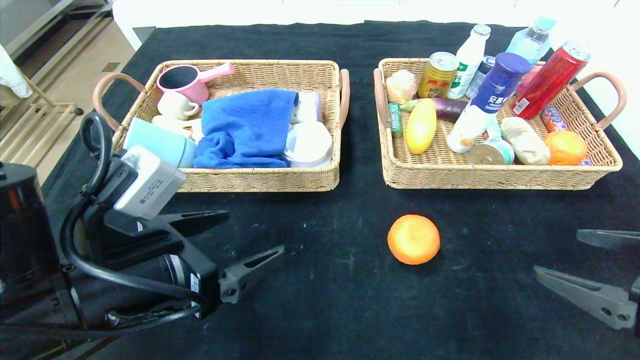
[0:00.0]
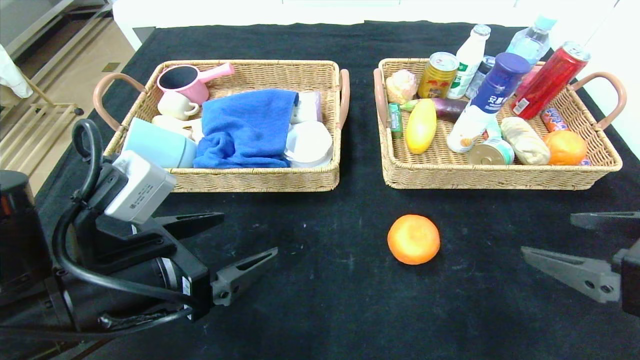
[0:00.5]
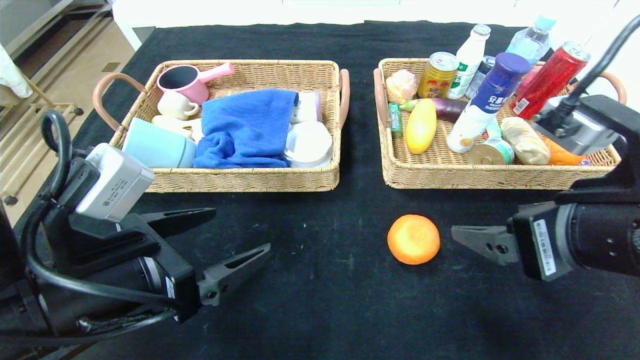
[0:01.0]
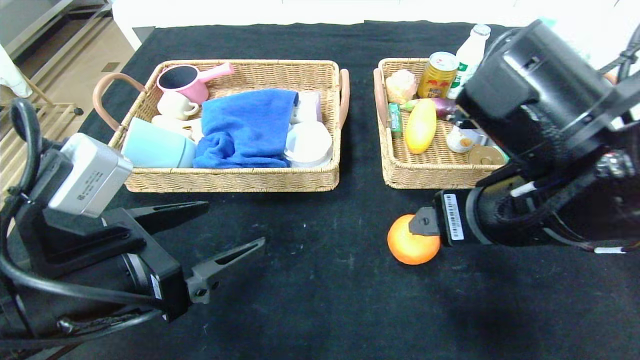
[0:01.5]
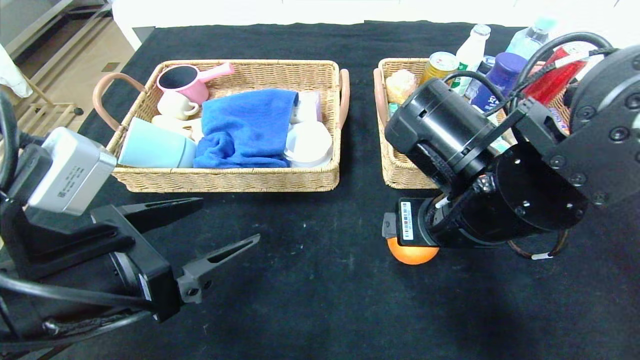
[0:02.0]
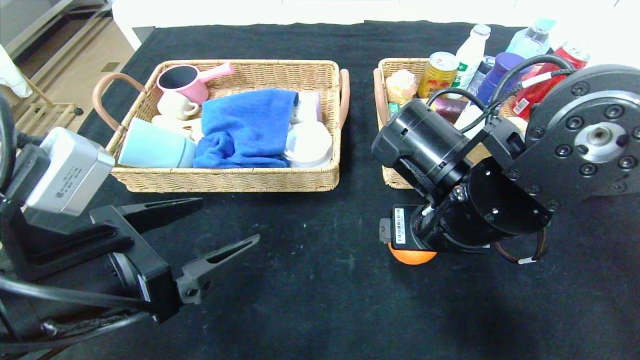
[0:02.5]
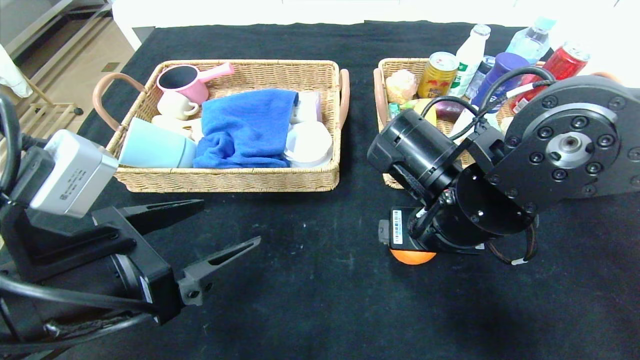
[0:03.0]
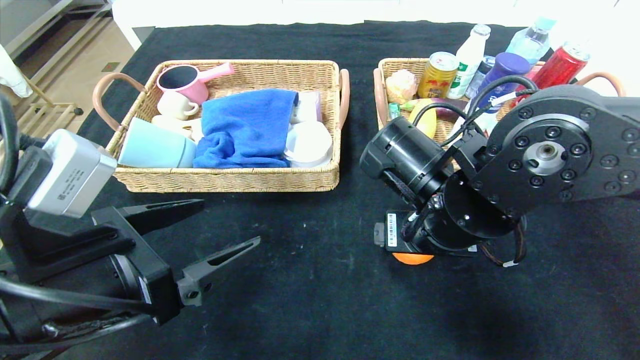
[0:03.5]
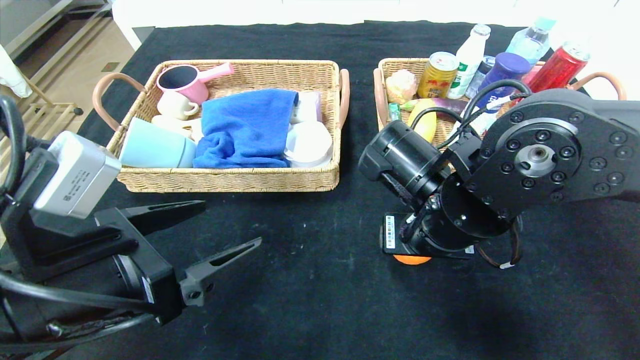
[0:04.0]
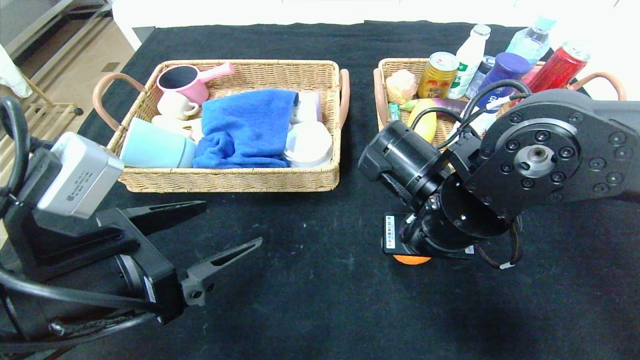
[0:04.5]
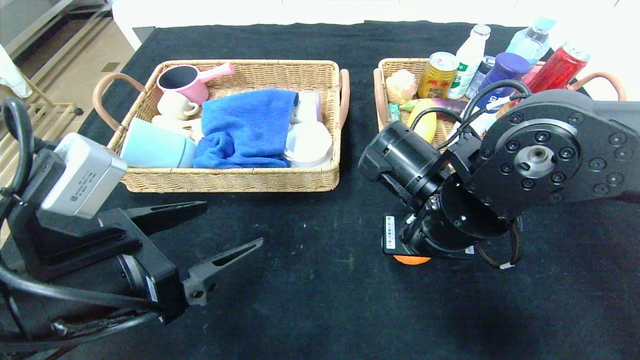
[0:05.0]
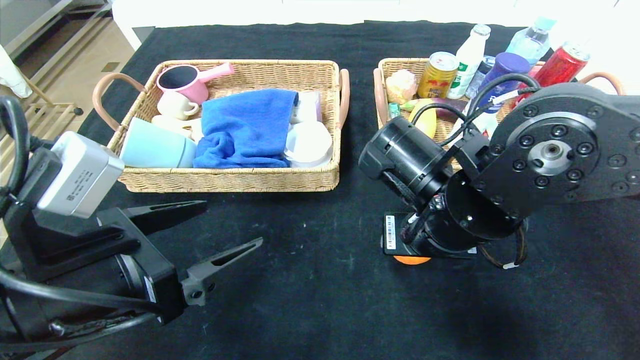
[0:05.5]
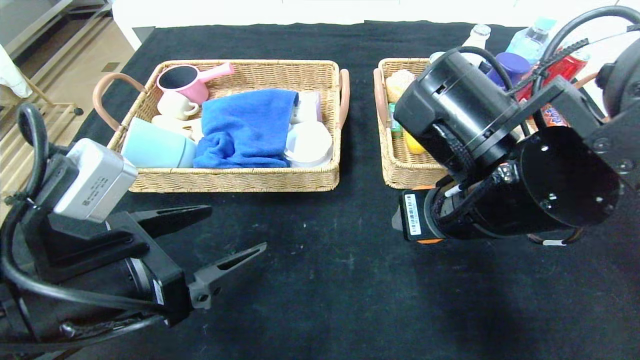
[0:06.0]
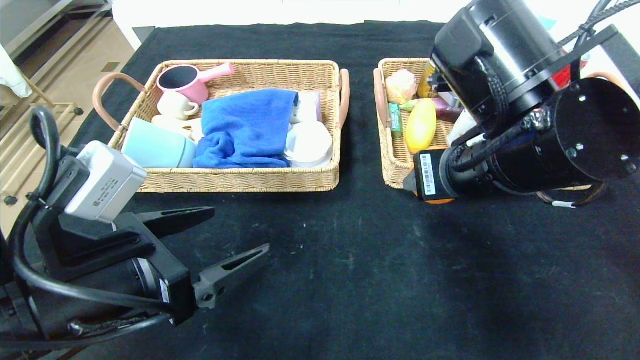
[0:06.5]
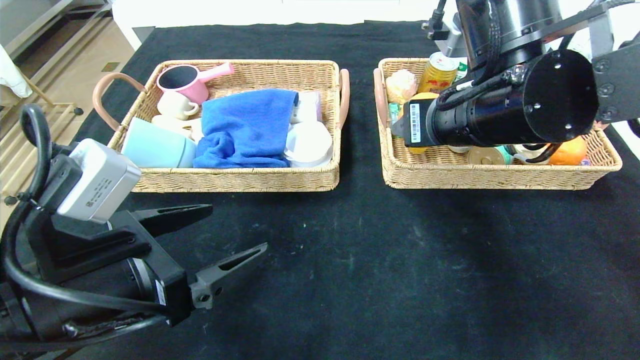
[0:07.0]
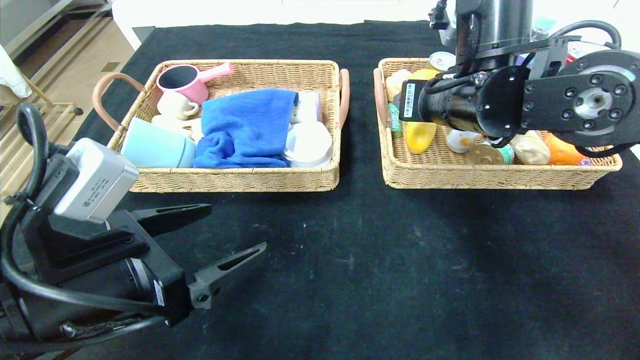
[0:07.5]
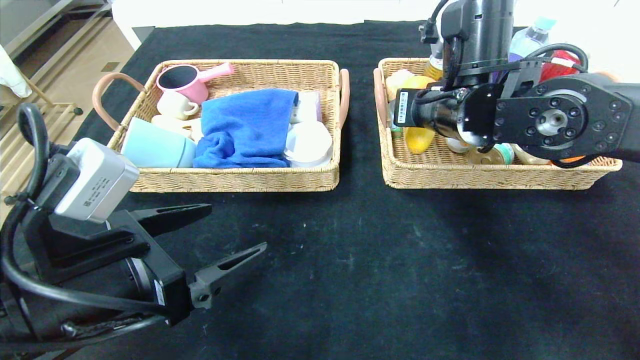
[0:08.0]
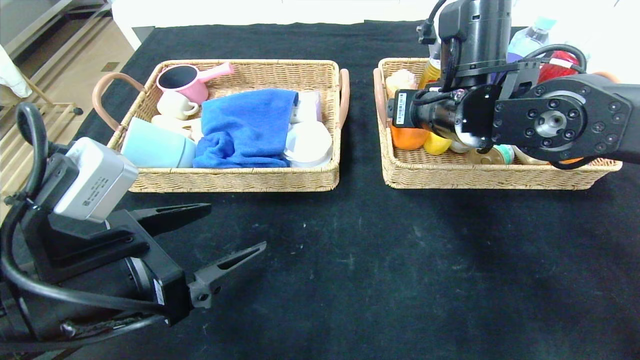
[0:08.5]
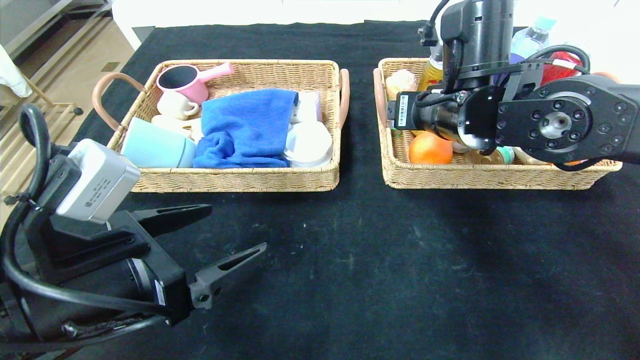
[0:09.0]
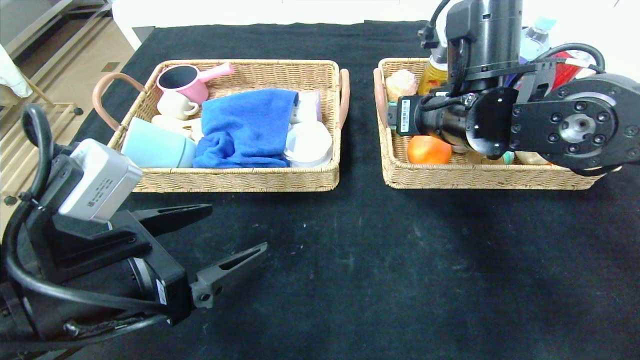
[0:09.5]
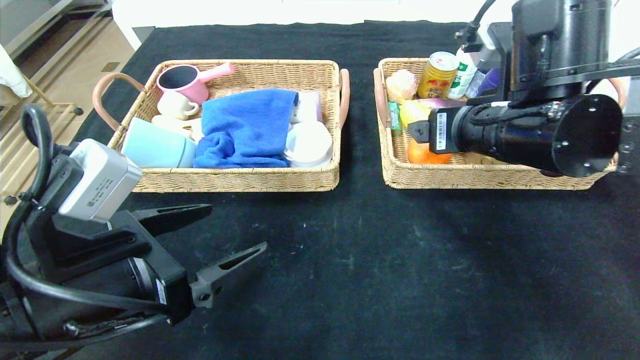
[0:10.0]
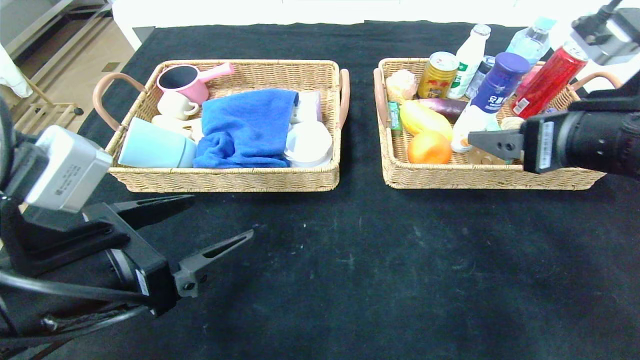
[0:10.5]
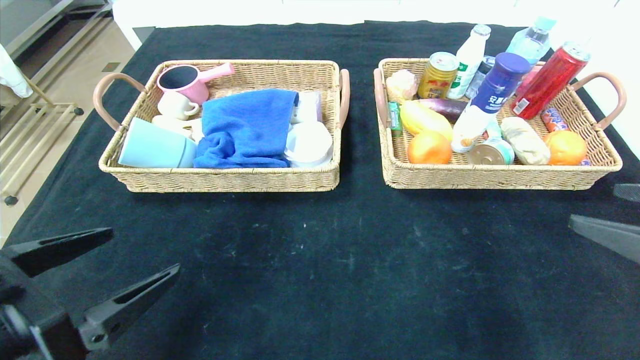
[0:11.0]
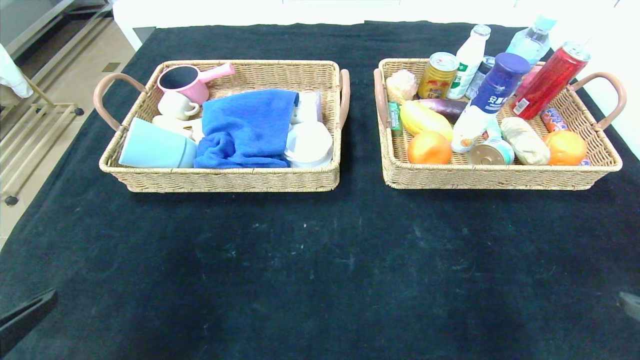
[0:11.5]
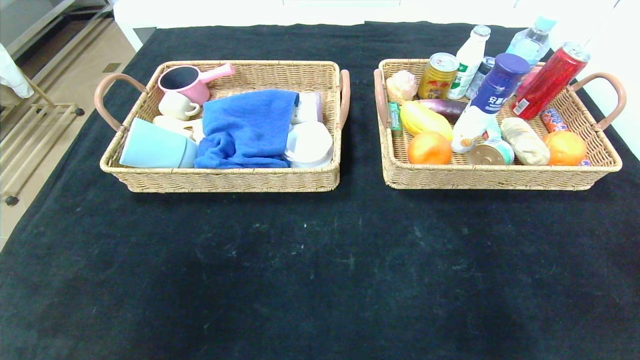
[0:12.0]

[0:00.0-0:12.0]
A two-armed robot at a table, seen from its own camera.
Step, 0:00.0 to 0:11.0: Pick up the orange and put it in the right basket.
0:00.0 to 0:02.0: The right gripper travels to the left and forward by approximately 20 cm.
0:02.0 to 0:04.0: The grippers stay close to where they were, moving slightly.
0:04.0 to 0:06.0: The right gripper is displaced upward by roughly 5 cm.
0:06.0 to 0:08.0: The right gripper shifts some 15 cm forward.
0:08.0 to 0:10.0: The right gripper is displaced backward by roughly 10 cm.
0:10.0 to 0:12.0: The right gripper is displaced backward and to the right by some 30 cm, while the left gripper travels backward and to the left by some 20 cm.

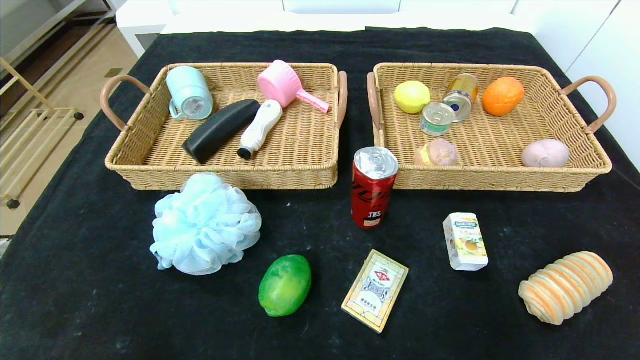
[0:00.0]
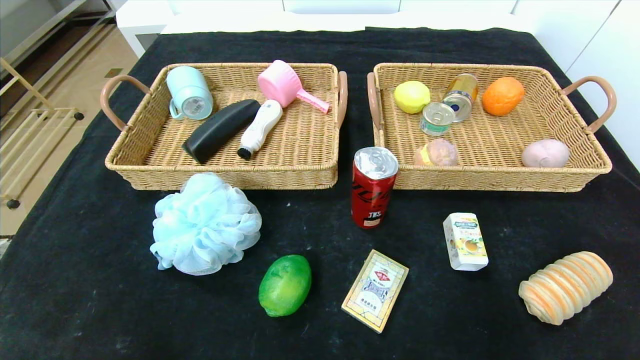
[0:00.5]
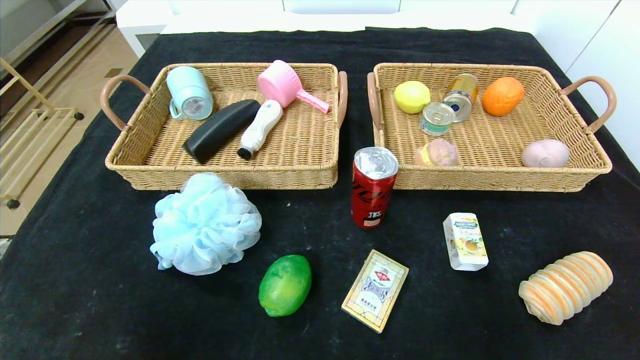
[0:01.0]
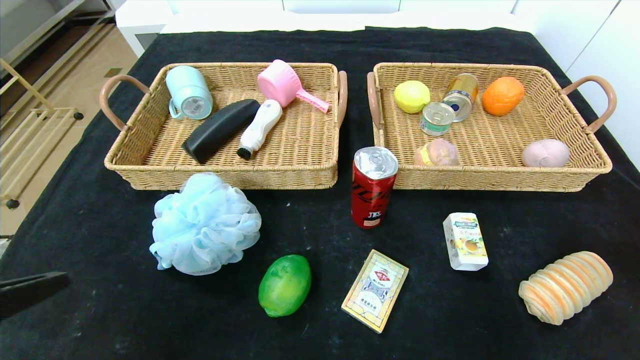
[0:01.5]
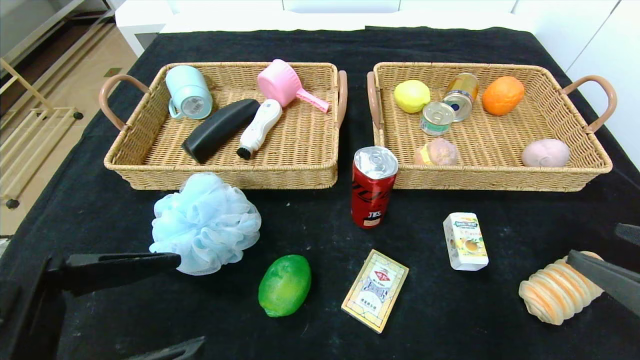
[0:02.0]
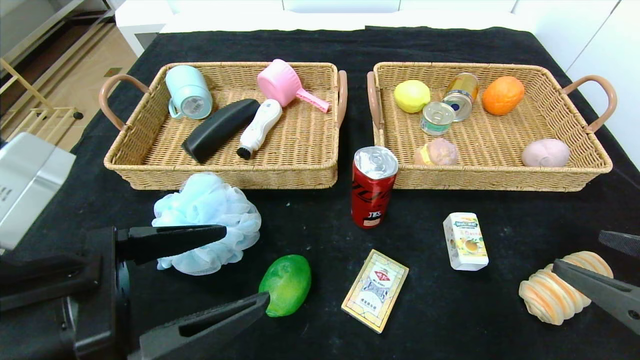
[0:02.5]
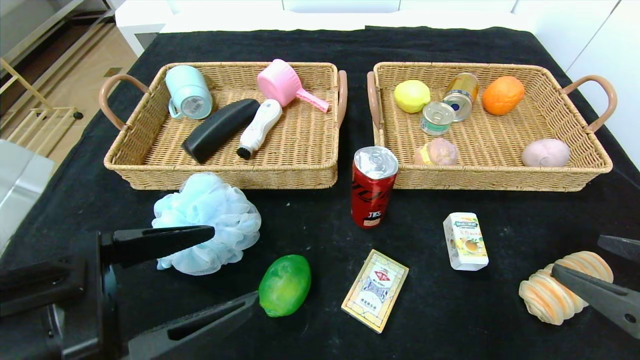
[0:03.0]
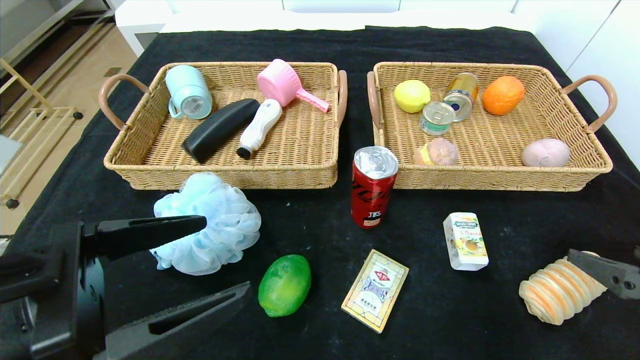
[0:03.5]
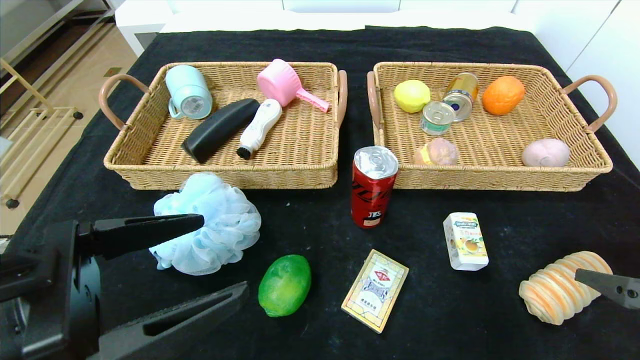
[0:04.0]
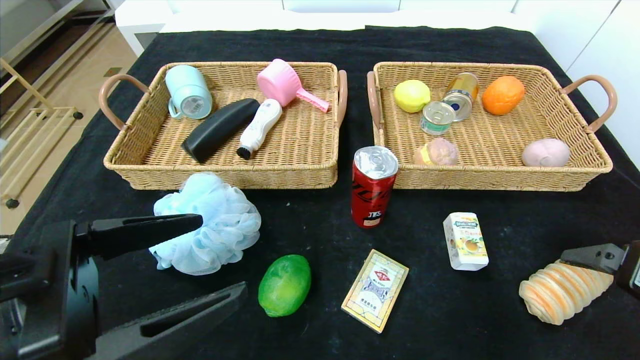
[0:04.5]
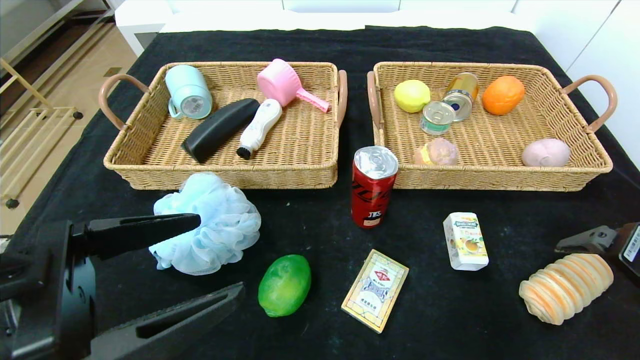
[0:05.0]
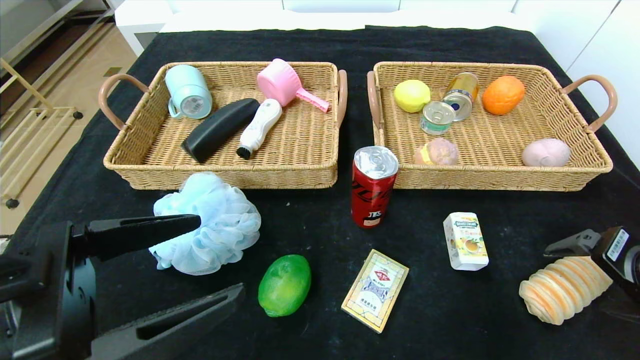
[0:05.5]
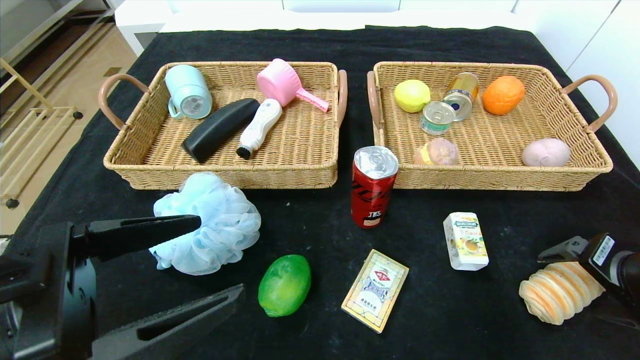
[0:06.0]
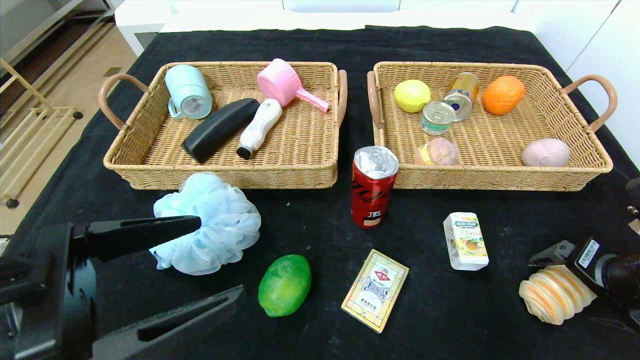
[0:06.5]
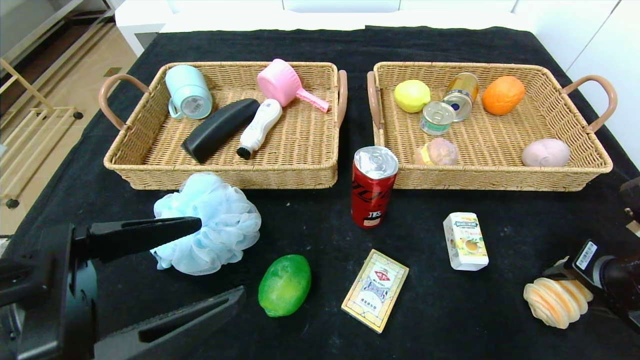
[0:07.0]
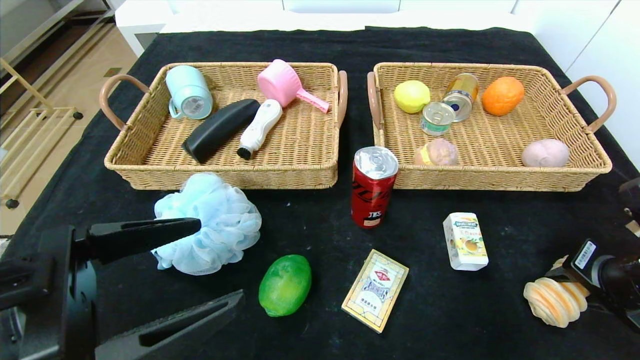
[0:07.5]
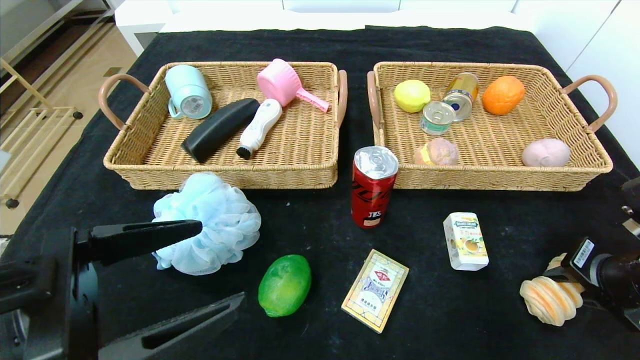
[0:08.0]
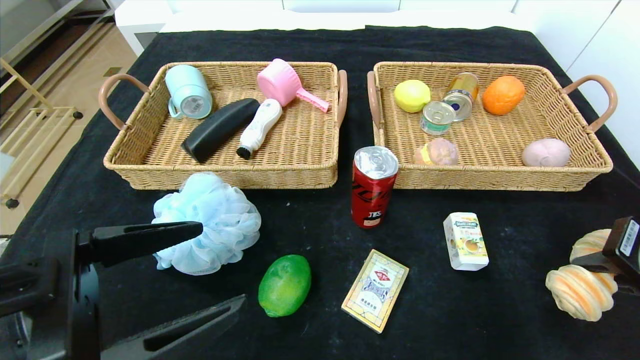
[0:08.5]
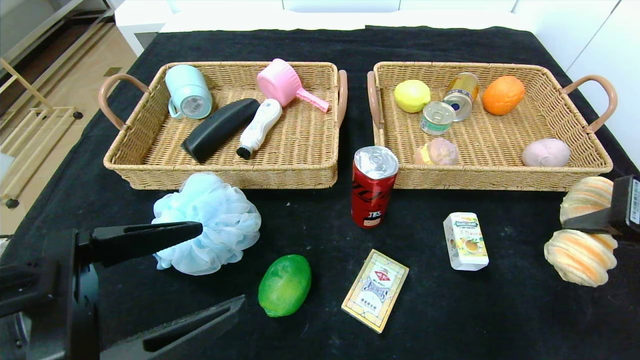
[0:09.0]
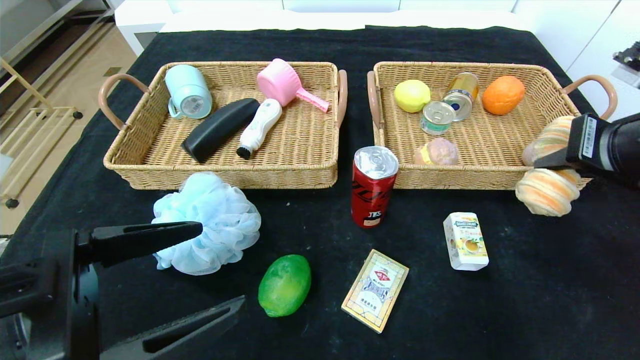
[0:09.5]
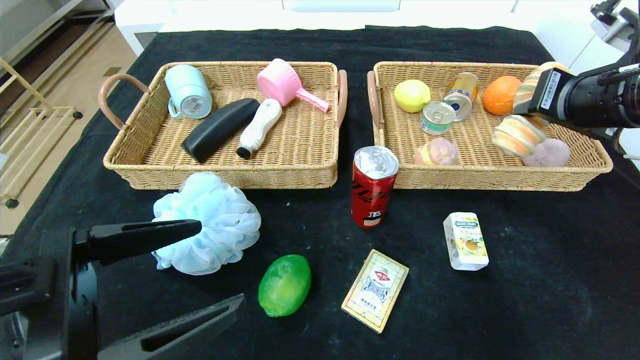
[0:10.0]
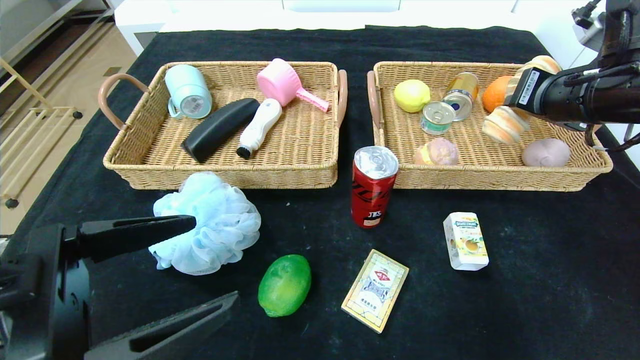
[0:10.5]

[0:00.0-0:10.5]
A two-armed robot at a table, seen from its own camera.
0:00.0 to 0:02.0: The grippers both shift upward and forward by about 20 cm.
0:04.0 to 0:06.5: The right gripper goes approximately 10 cm forward.
0:06.5 to 0:08.5: The right gripper shifts by approximately 5 cm, and closes up.
0:08.5 to 0:10.5: The right gripper travels forward and upward by some 20 cm.
